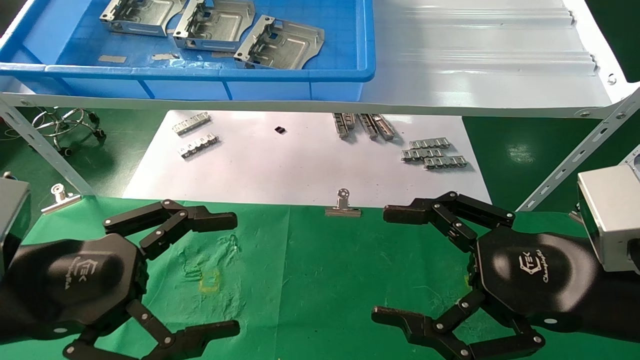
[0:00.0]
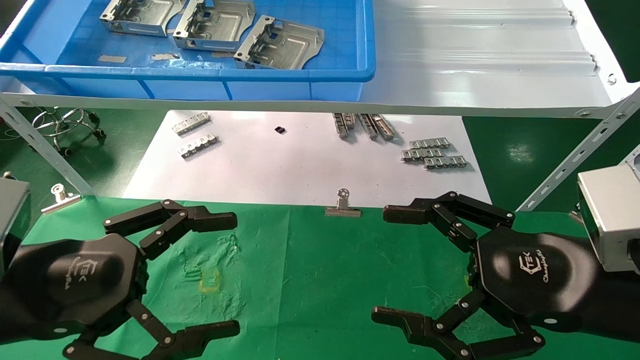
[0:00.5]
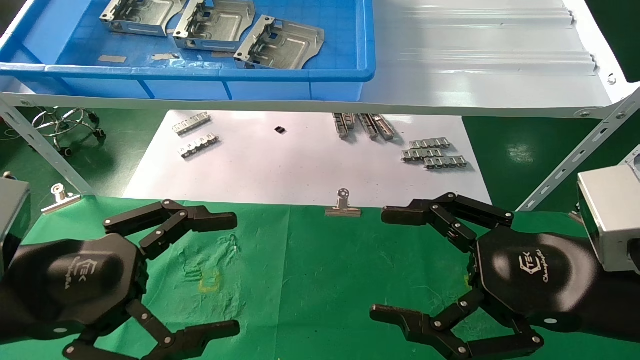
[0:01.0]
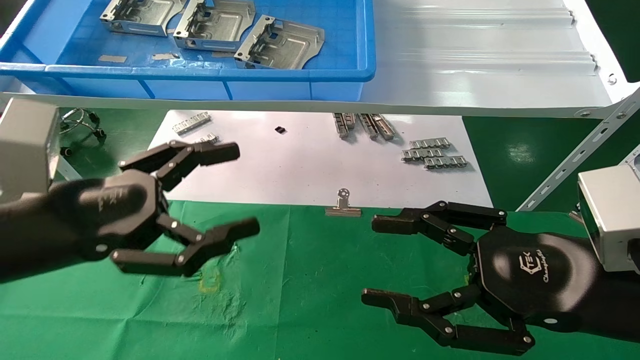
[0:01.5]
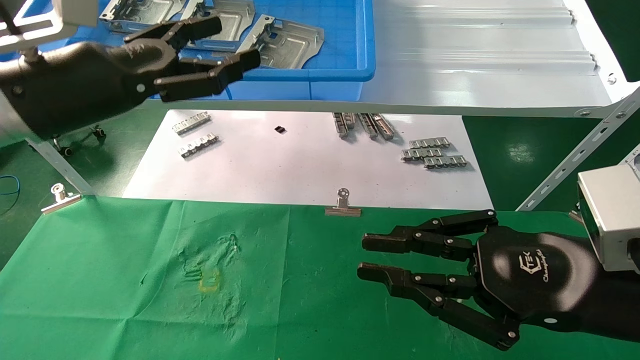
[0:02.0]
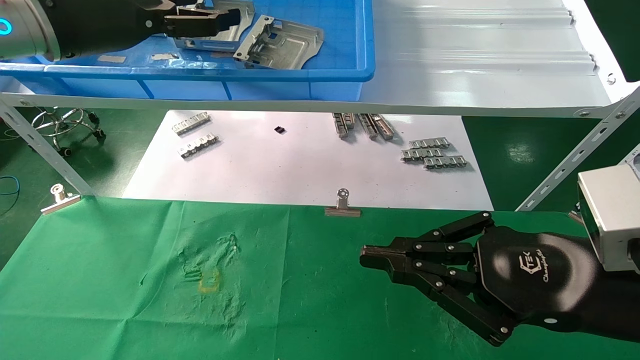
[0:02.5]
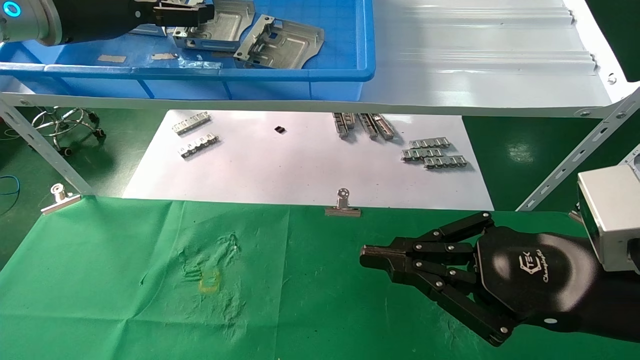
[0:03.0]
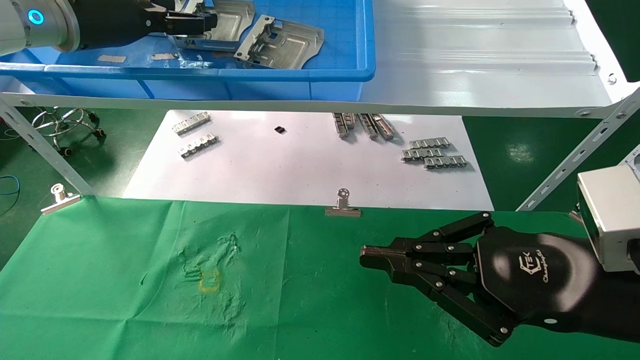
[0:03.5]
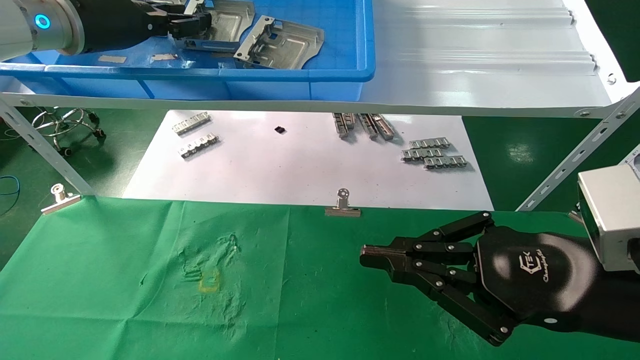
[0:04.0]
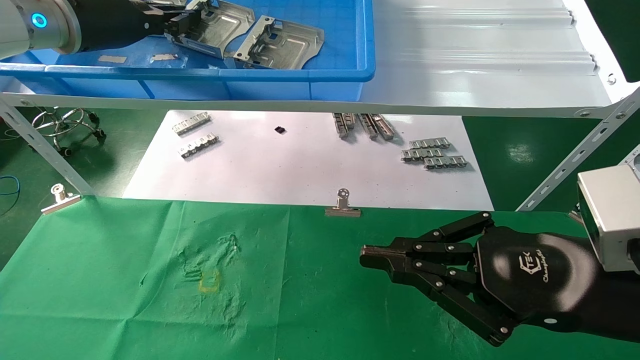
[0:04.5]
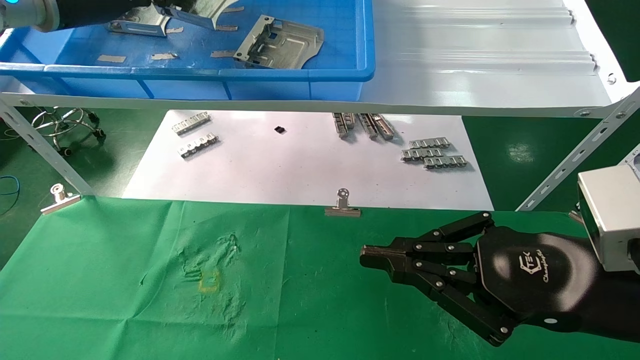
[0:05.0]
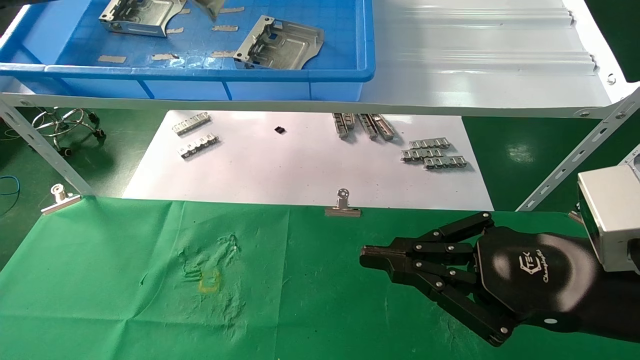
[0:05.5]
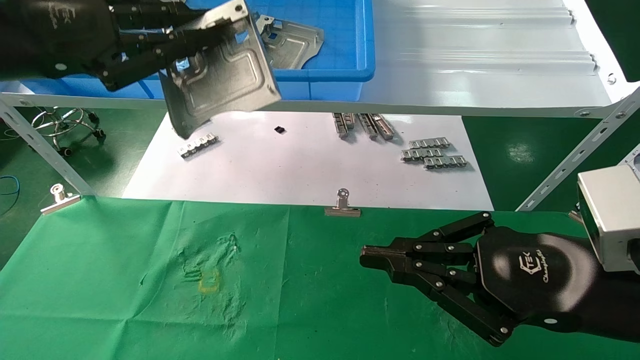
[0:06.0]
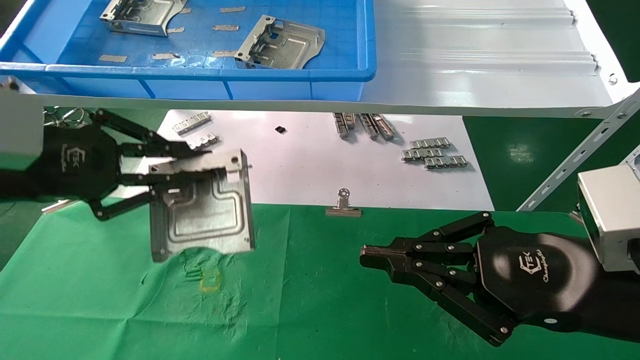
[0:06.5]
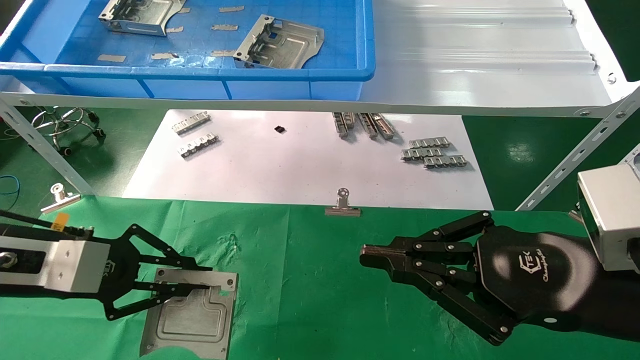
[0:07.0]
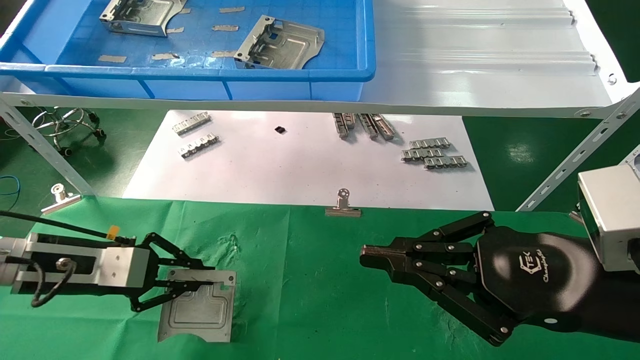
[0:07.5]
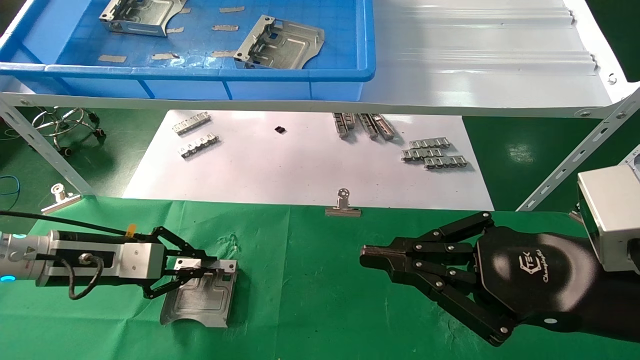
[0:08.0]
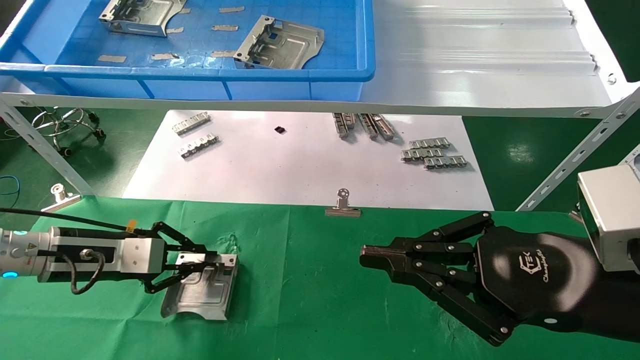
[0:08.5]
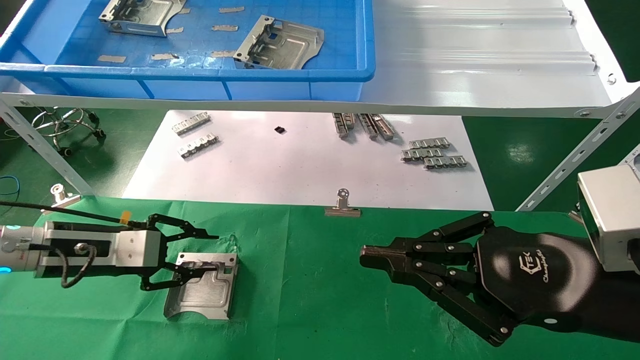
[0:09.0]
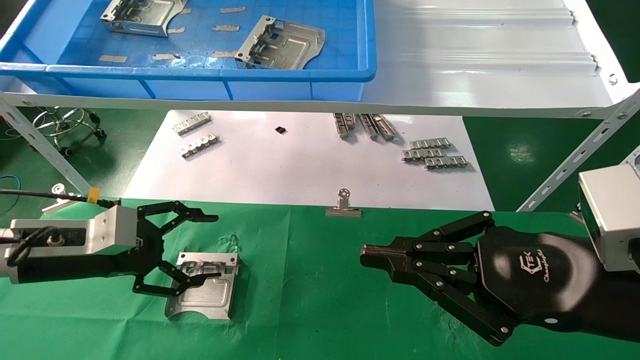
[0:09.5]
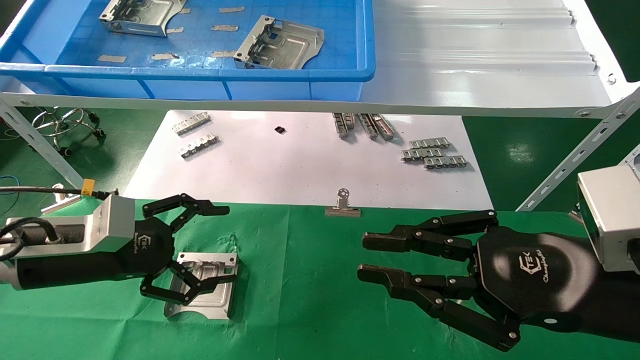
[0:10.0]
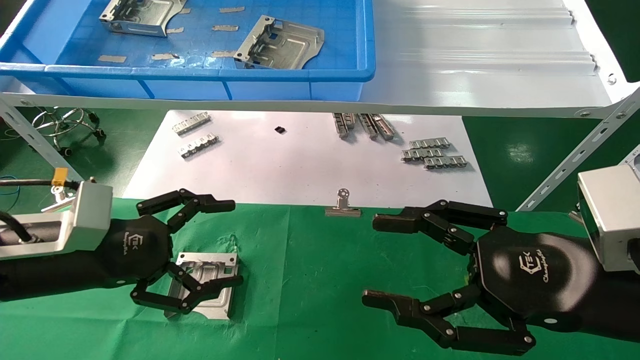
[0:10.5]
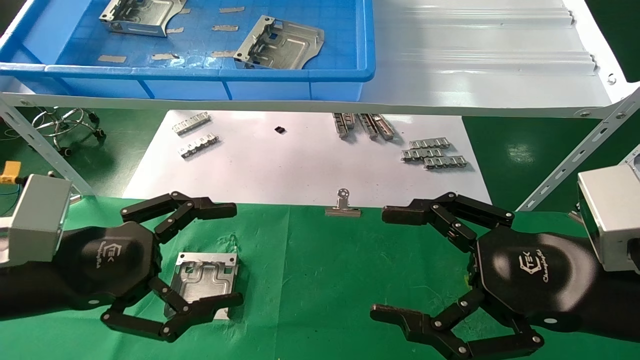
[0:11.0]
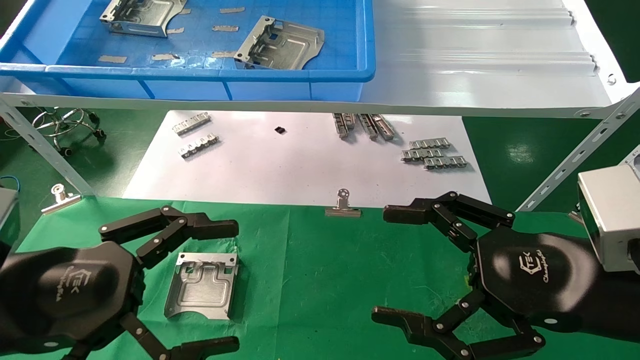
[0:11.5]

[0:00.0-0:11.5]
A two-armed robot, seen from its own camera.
Task of the whole recording: use the mechanical arm to pick up the parts and place them on the table.
Step, 0:01.5 to 0:04.5: Pick up the hard drive bracket from the feeding area.
Step, 0:05.0 to 0:08.5: Place the hard drive bracket into the box.
0:00.0 to 0:02.0: The right gripper closes up, while the left gripper is displaced upward and forward by approximately 20 cm.
0:02.0 to 0:04.0: The left gripper shifts roughly 15 cm forward and upward, and closes.
0:04.0 to 0:06.0: The left gripper goes some 15 cm backward, and closes its fingers.
0:06.0 to 0:07.5: The left gripper heads downward, covering roughly 25 cm.
0:07.5 to 0:09.5: The left gripper opens its fingers.
0:09.5 to 0:11.5: The left gripper is displaced backward by approximately 15 cm. The right gripper opens.

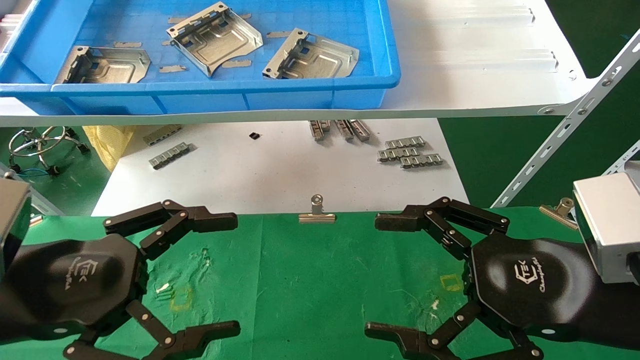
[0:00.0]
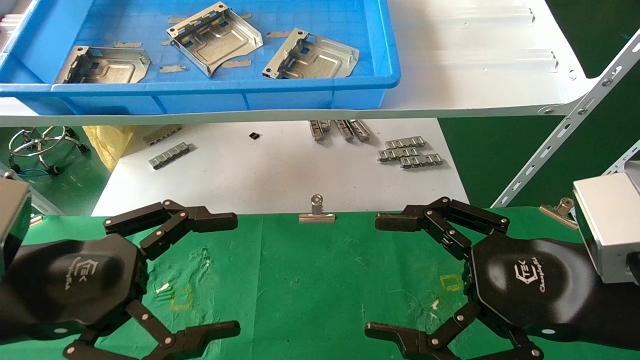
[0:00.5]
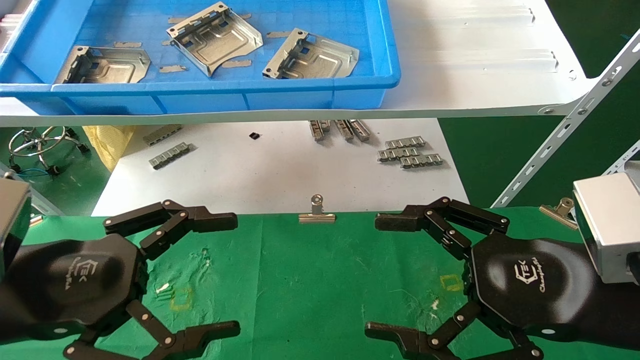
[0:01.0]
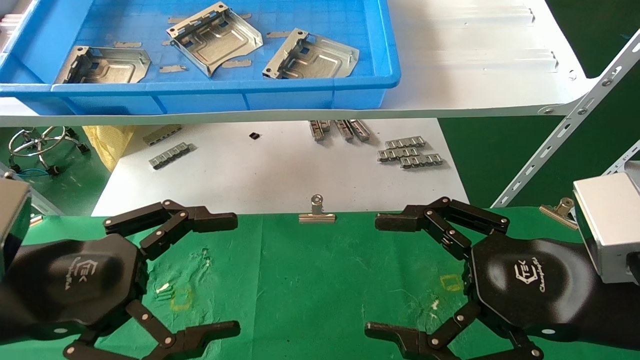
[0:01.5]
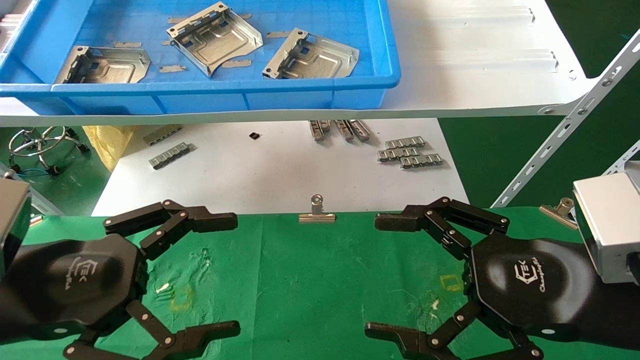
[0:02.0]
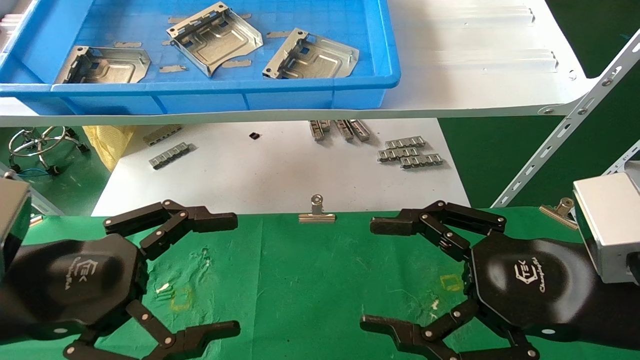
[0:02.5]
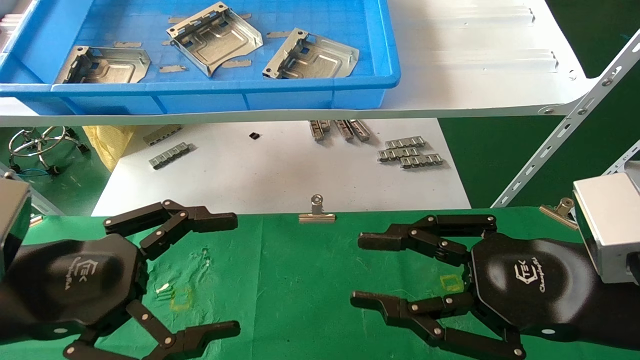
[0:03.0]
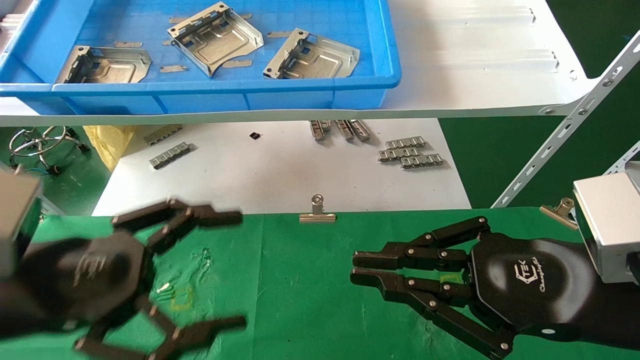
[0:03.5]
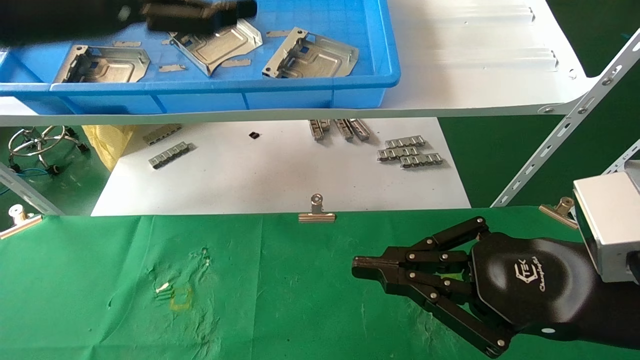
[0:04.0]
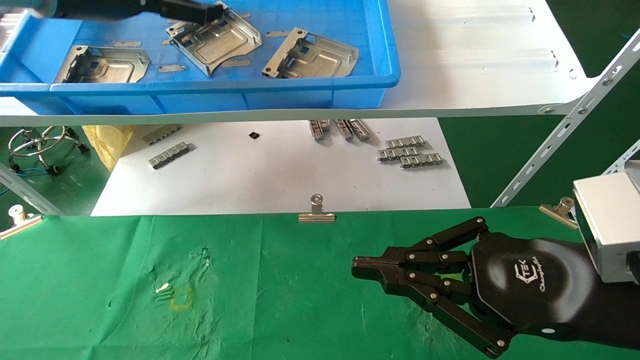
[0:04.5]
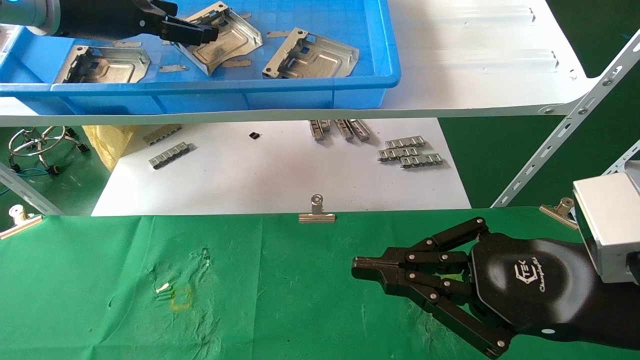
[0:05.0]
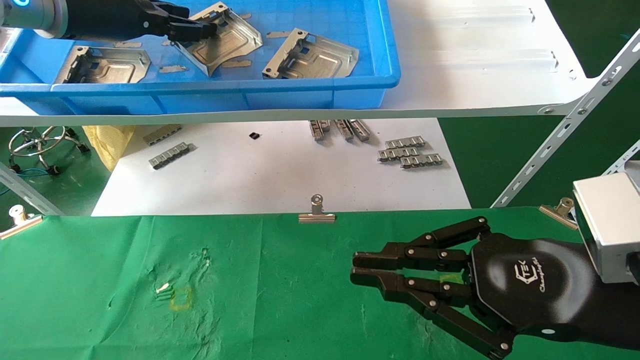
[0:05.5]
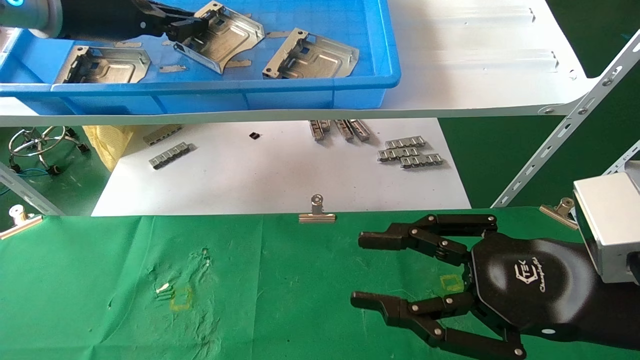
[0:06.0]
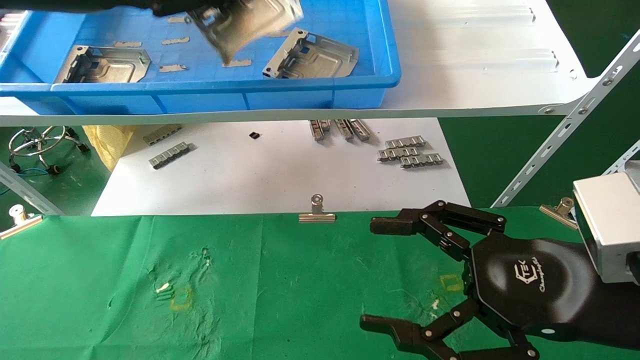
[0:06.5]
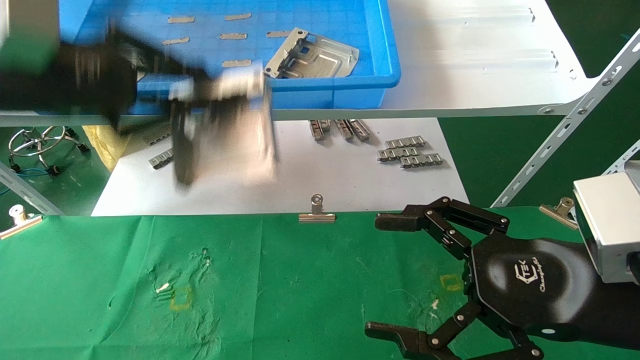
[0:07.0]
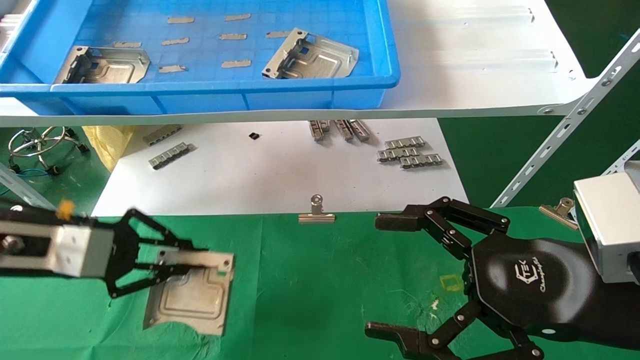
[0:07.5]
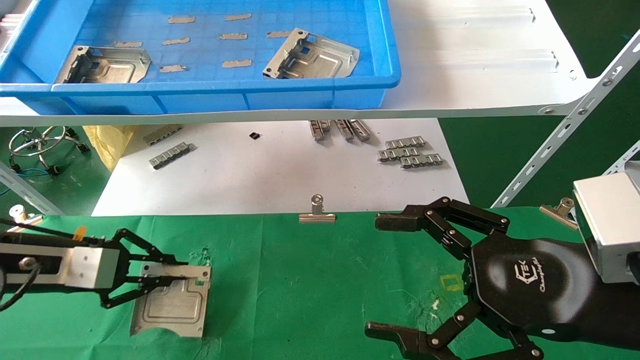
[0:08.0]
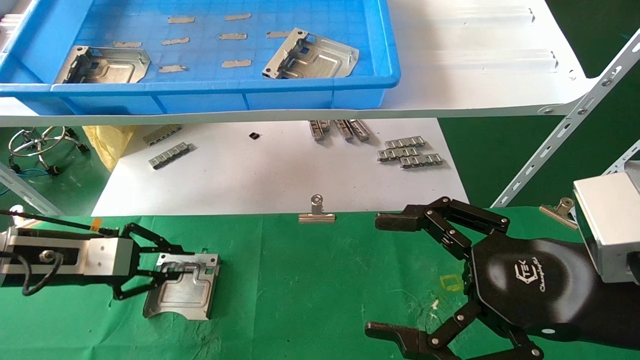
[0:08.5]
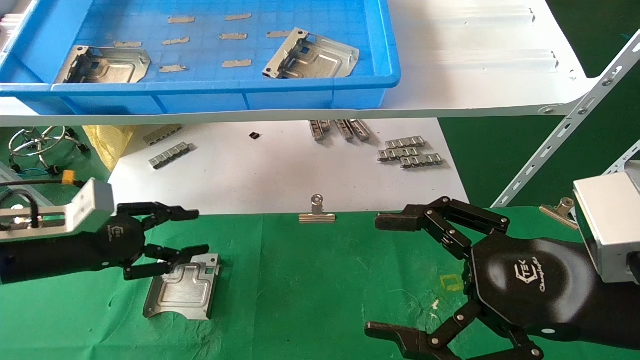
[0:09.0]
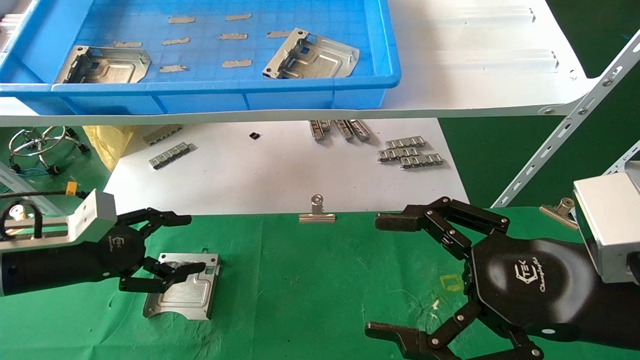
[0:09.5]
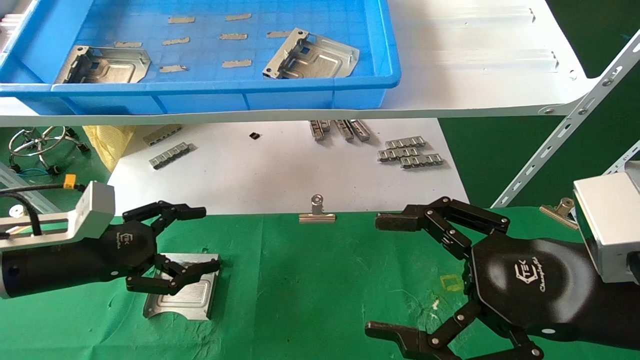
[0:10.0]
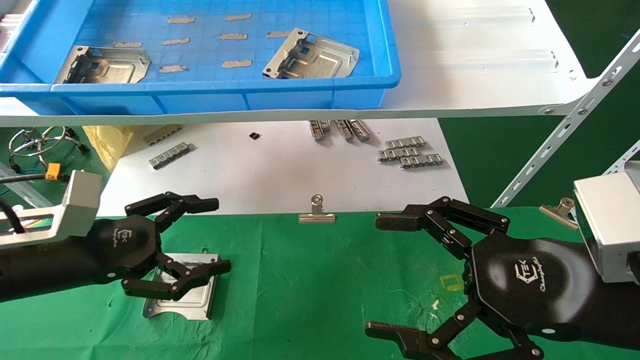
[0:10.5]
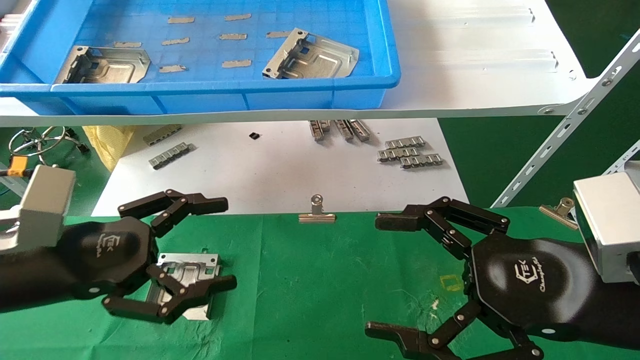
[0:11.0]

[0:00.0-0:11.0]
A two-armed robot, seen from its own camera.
Task of the whole recording: use the mechanical arm to pick up the parts and place them on the table.
Step, 0:02.5 to 0:04.5: Pick up the hard drive bracket from the feeding area.
Step, 0:05.0 to 0:08.0: Place the hard drive bracket into the box.
0:00.0 to 0:02.0: The two grippers keep their place.
0:02.0 to 0:03.5: The right gripper closes its fingers. Meanwhile the left gripper ends up some 5 cm from where it was.
0:03.5 to 0:05.5: The left gripper travels forward and upward by approximately 25 cm, and closes.
0:05.5 to 0:07.5: The right gripper opens up; the left gripper shifts roughly 25 cm downward and backward, and closes its fingers.
0:07.5 to 0:09.0: The left gripper heads downward, covering some 5 cm, and opens up.
0:09.0 to 0:11.0: The left gripper is displaced backward and to the right by roughly 10 cm, and opens up.
